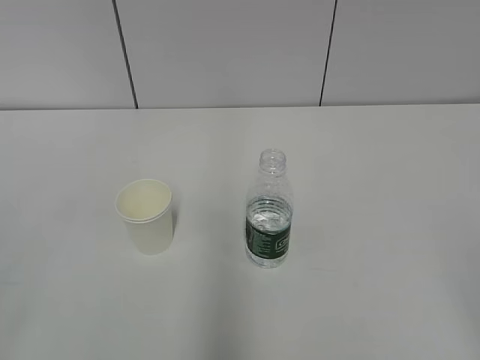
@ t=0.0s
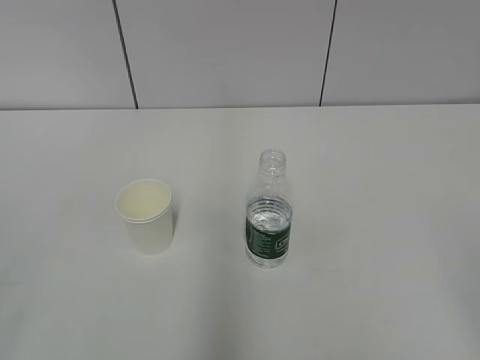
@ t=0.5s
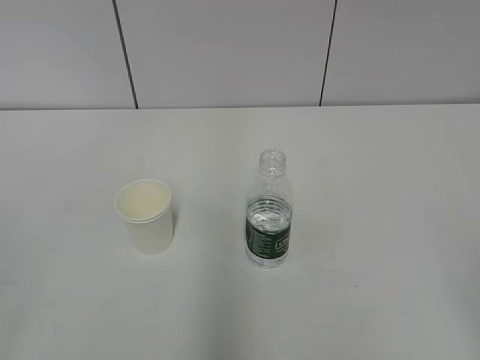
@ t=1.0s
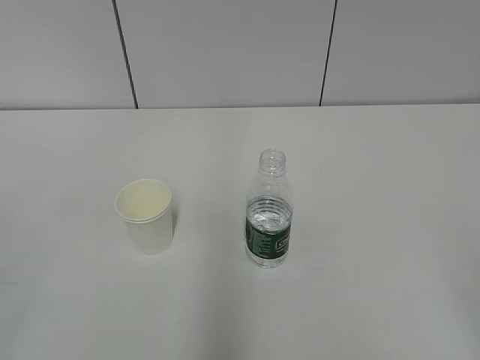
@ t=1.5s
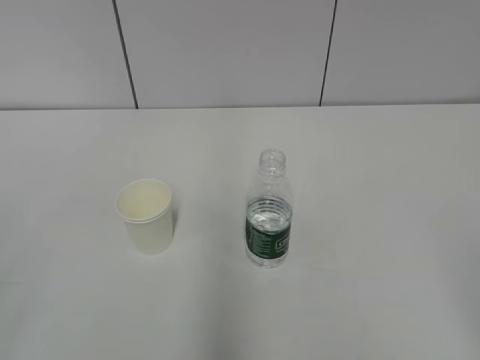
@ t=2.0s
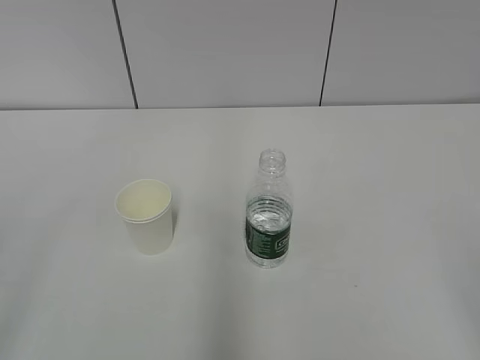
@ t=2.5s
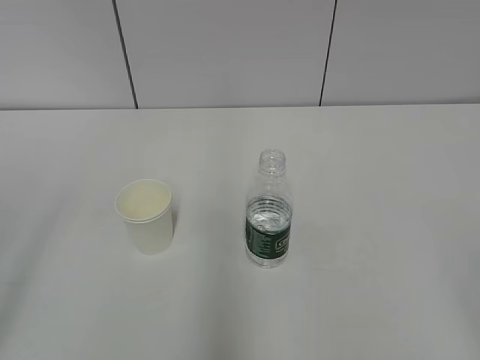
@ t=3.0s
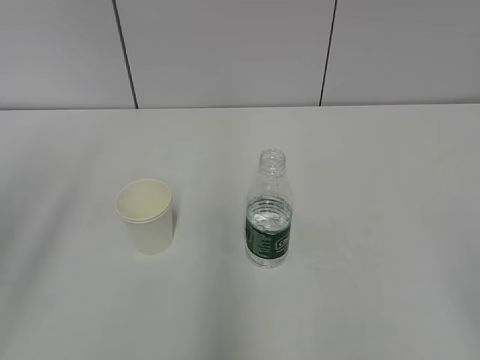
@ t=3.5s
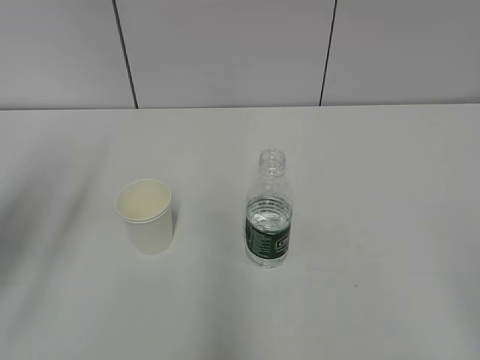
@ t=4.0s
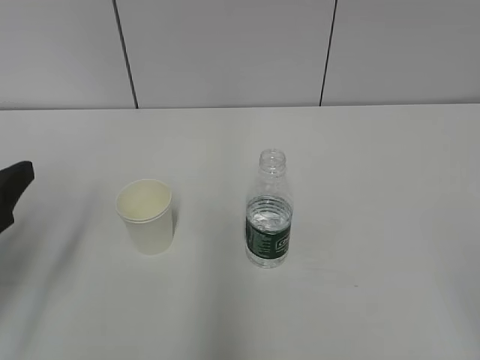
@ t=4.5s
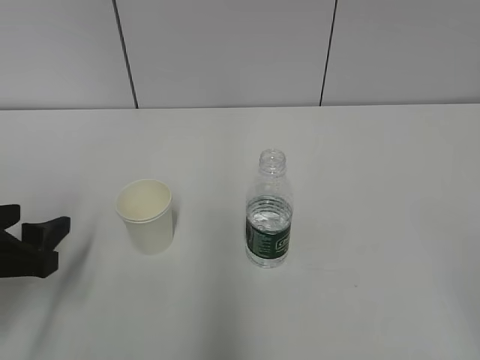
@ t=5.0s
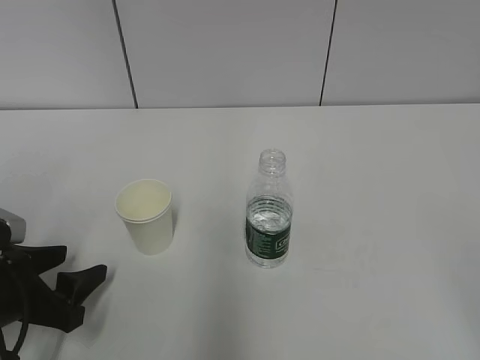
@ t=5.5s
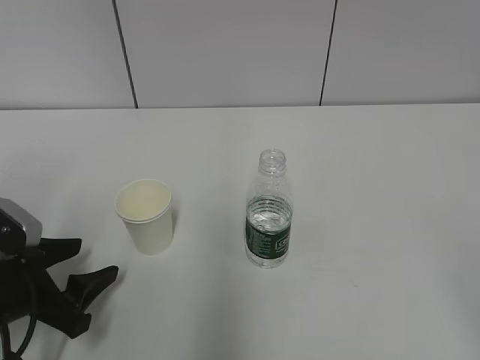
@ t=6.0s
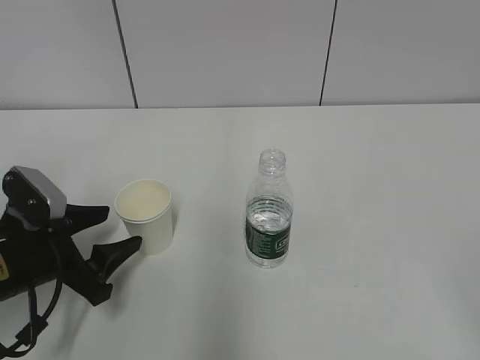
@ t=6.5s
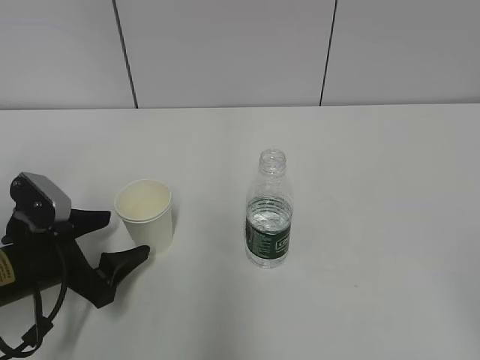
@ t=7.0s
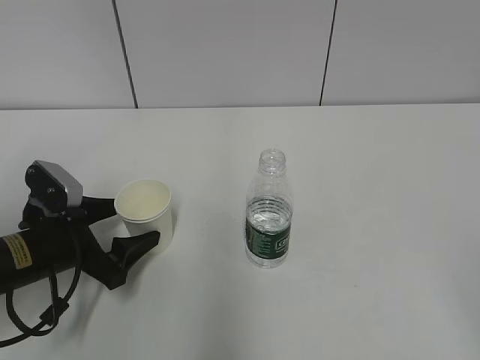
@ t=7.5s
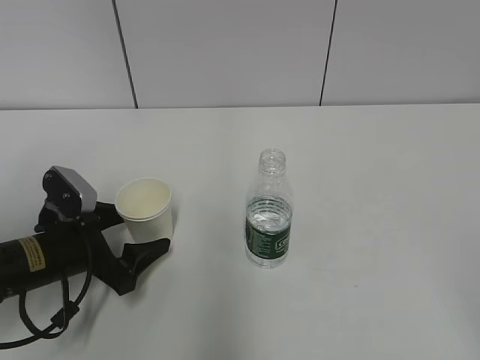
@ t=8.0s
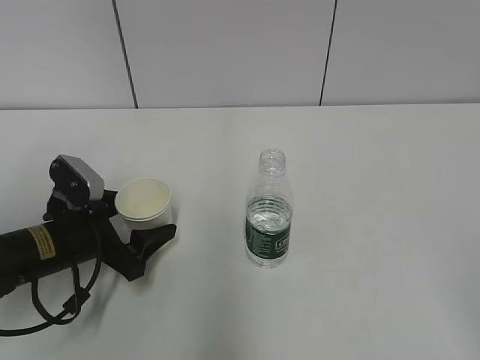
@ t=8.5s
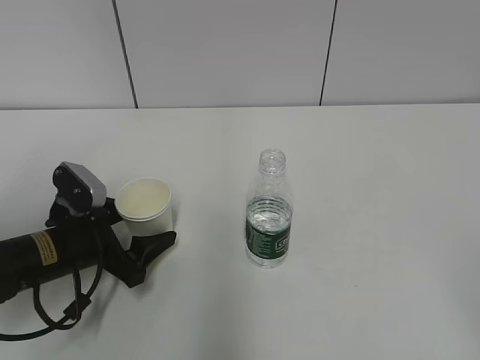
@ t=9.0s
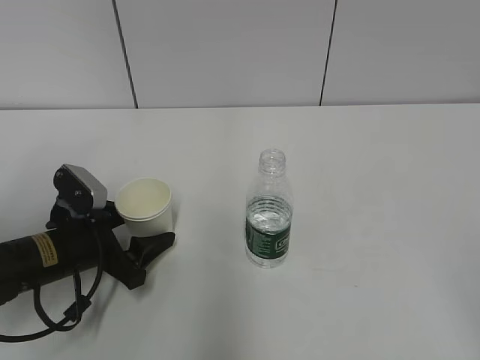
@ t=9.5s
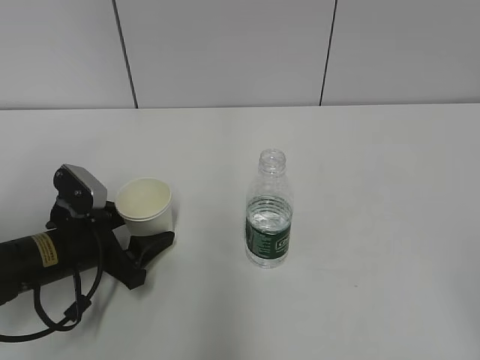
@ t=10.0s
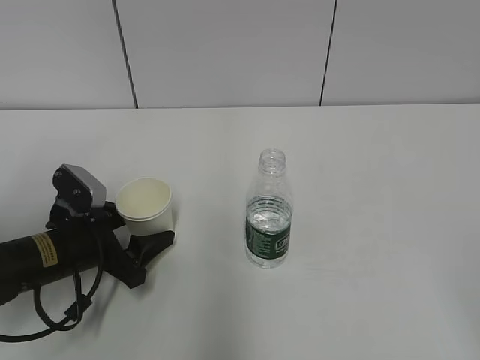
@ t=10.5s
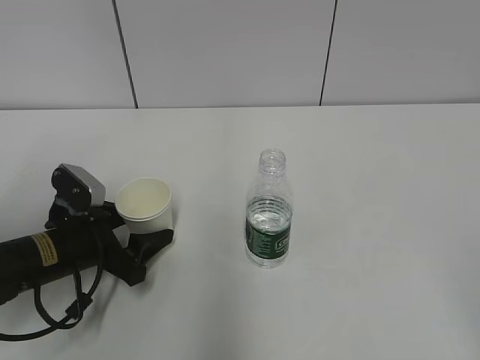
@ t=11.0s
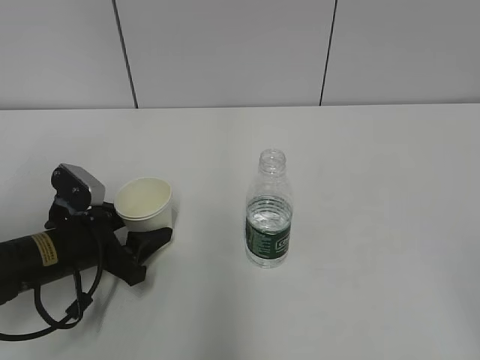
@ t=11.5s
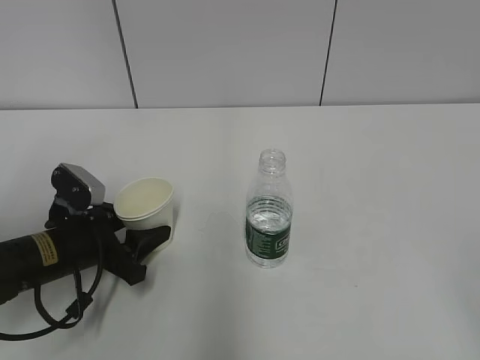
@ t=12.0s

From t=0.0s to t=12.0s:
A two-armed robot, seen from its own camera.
Step, from t=0.0s to t=10.0s: Grab the paper cup with the left hand.
From t=2.0s to t=4.0s: The left gripper travels forward by roughly 20 cm, and opens up.
From t=4.0s to t=6.0s: The left gripper goes roughly 20 cm downward, and closes up.
From t=6.0s to t=8.0s: The left gripper moves forward, roughly 5 cm, and opens its fingers.
From t=8.0s to t=10.0s: There are only small adjustments of the grippers.
From t=10.0s to t=12.0s: The left gripper closes up.

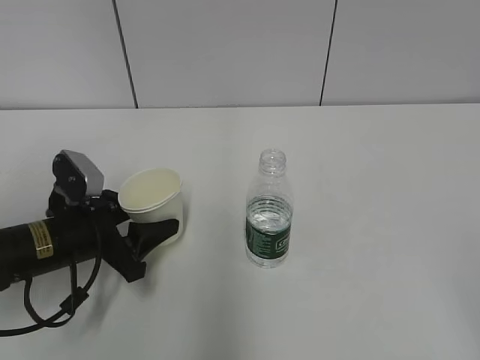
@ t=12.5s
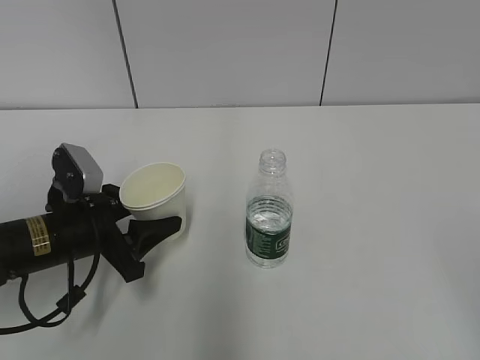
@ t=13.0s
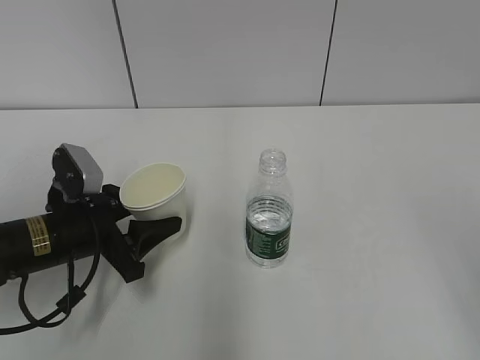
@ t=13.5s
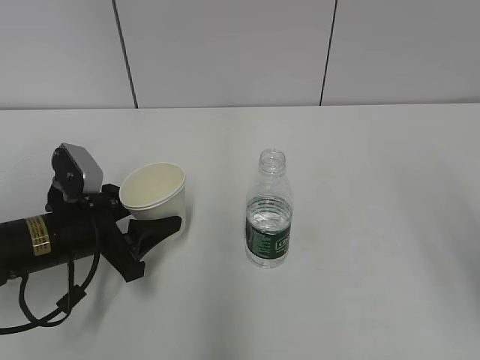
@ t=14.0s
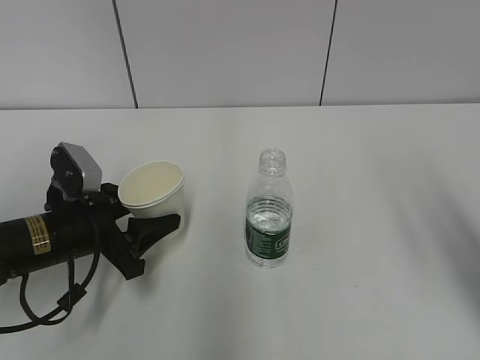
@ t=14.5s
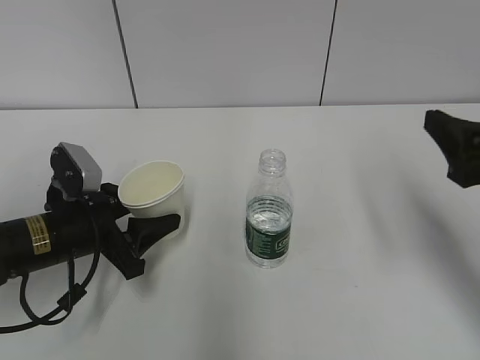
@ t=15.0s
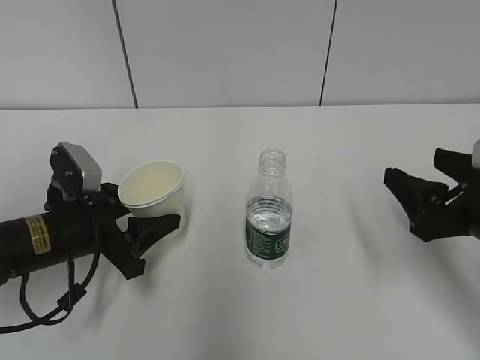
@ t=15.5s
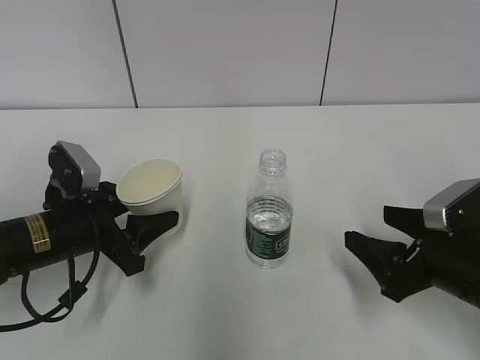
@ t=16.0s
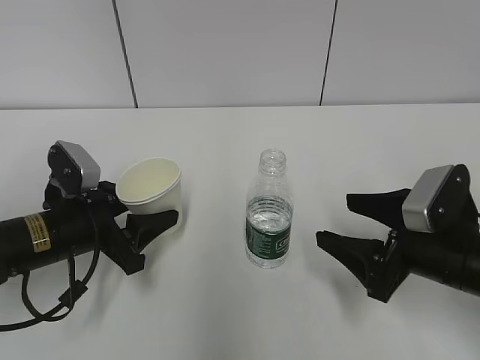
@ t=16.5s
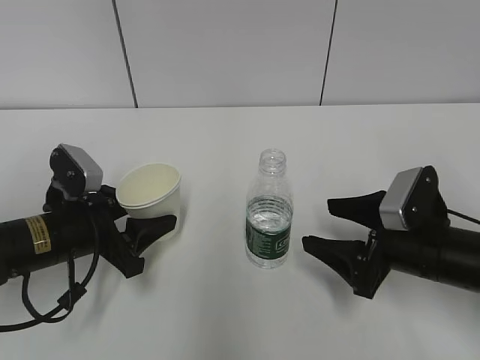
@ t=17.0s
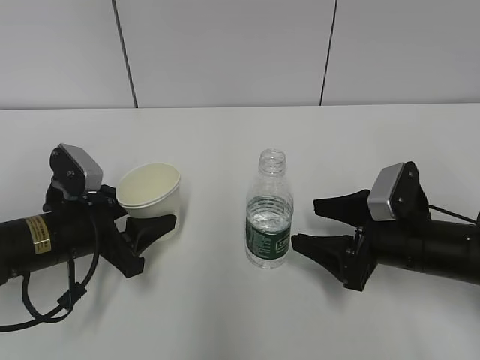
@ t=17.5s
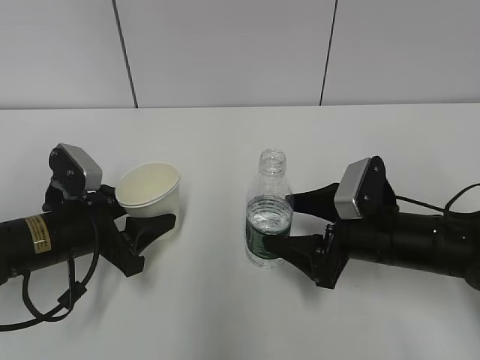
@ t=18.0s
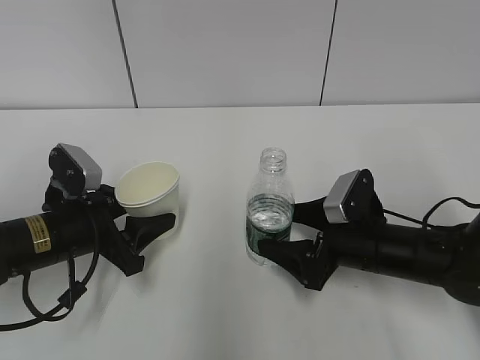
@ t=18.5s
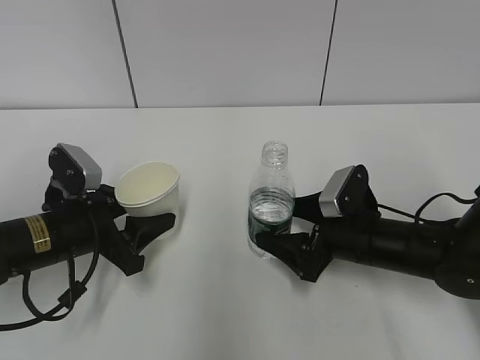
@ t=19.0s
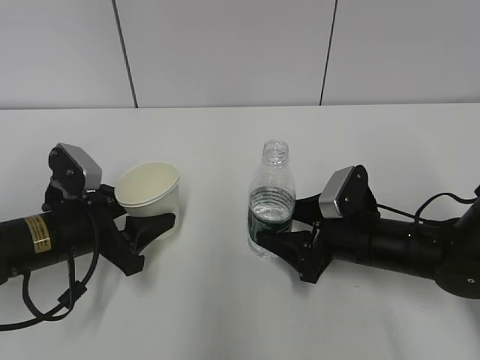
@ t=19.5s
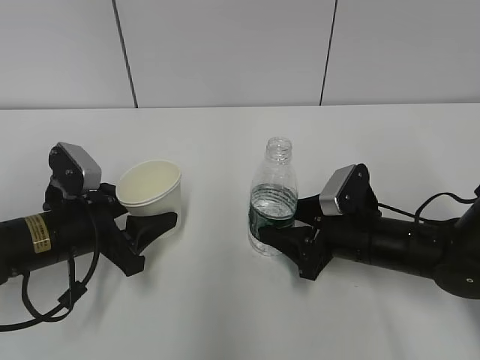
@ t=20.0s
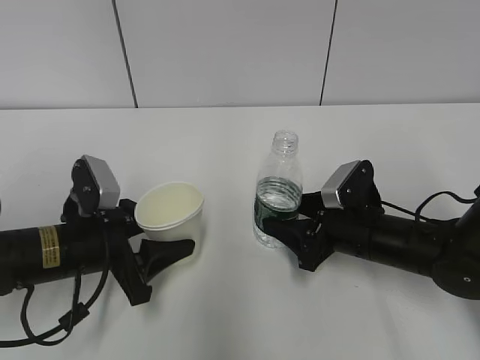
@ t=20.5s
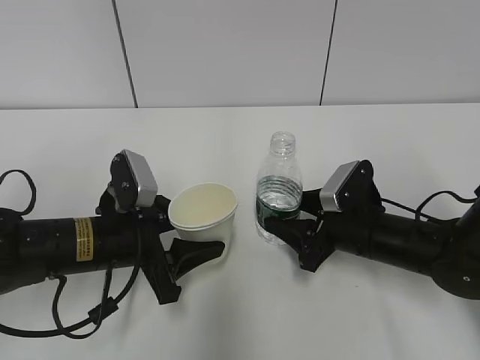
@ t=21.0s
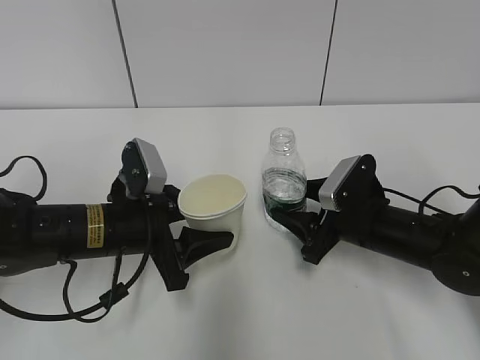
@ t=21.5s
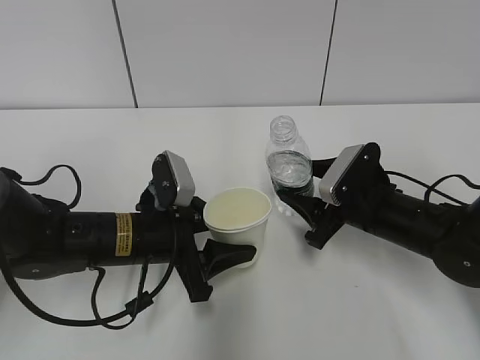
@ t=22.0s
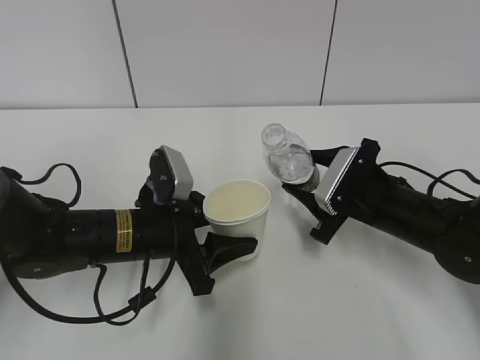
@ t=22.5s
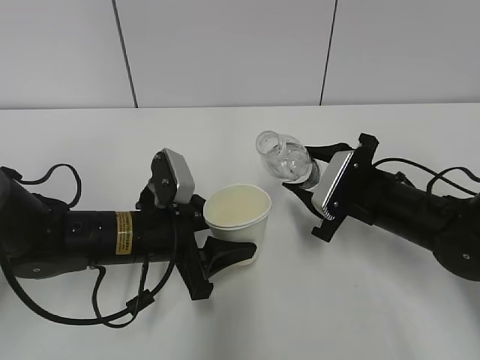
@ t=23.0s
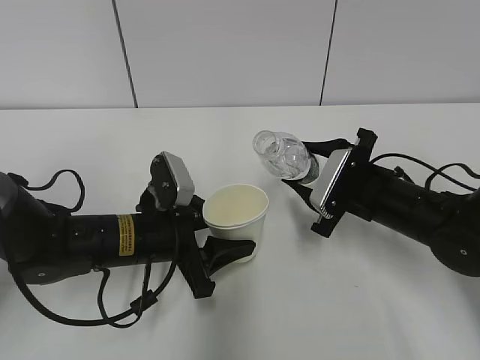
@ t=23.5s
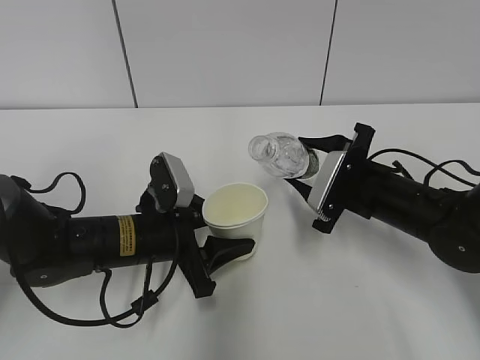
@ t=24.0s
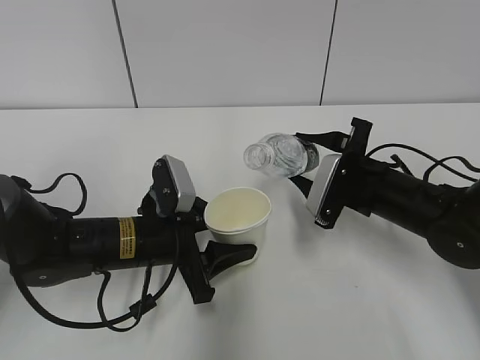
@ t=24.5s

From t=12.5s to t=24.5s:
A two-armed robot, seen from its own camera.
Step, from t=12.5s to t=17.5s: Grab the water bottle with the right hand.
Step, from t=18.0s to t=22.0s: Lift the paper cup with the left hand.
From t=12.5s to t=14.5s: The right gripper is displaced forward by some 15 cm.
From t=14.5s to t=16.5s: The right gripper shifts some 20 cm downward and forward.
From t=16.5s to t=18.5s: The right gripper moves forward and downward, some 10 cm.
From t=18.5s to t=20.5s: The right gripper closes.
From t=20.5s to t=22.5s: The left gripper goes about 5 cm to the right.

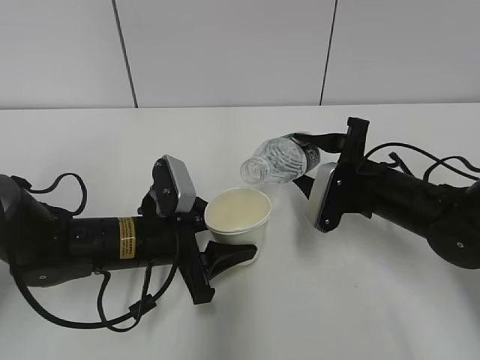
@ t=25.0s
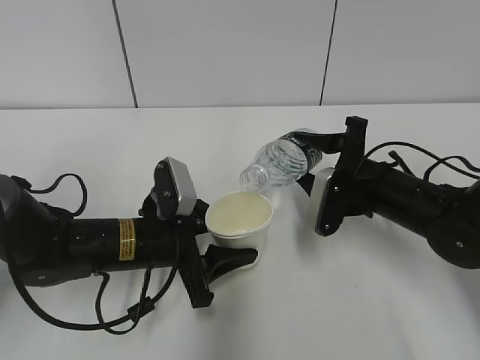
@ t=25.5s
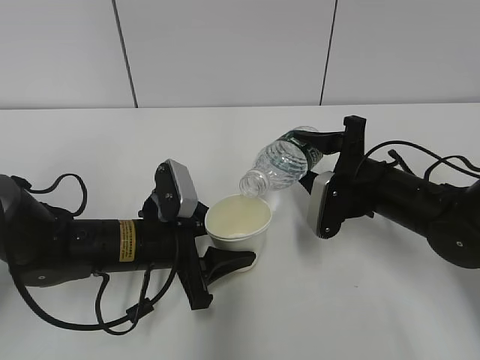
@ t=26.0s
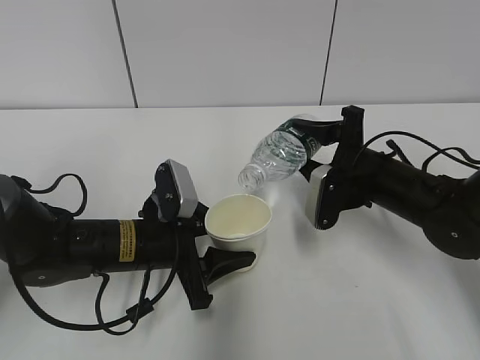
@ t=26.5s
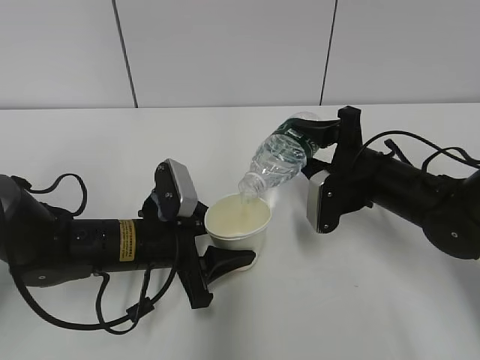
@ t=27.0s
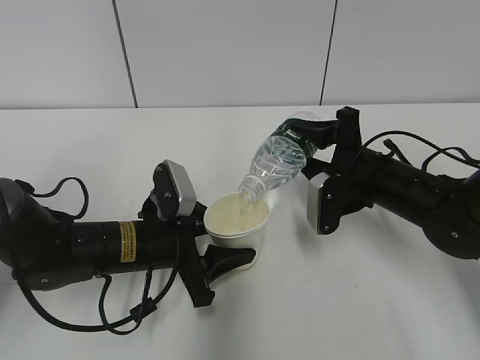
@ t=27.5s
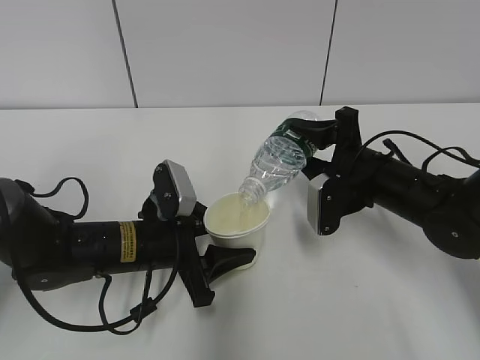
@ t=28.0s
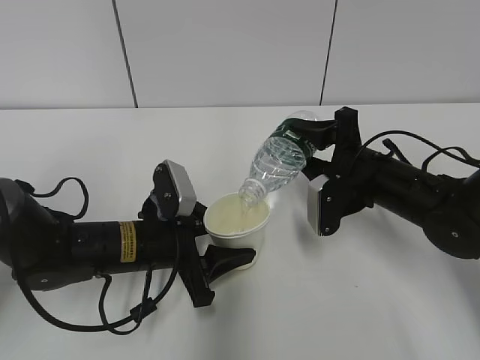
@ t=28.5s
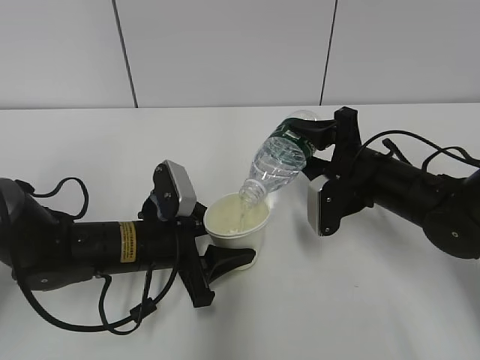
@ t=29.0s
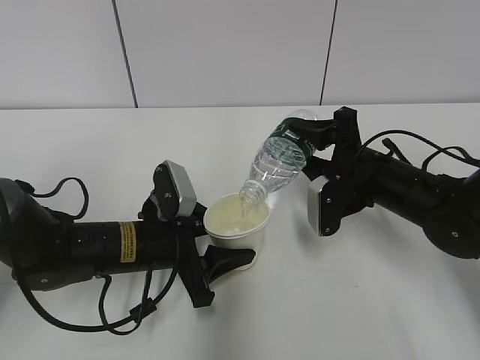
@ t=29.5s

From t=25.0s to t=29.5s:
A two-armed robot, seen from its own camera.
From t=27.0s to t=29.5s: The grippers stay close to where they were, moving slightly.
